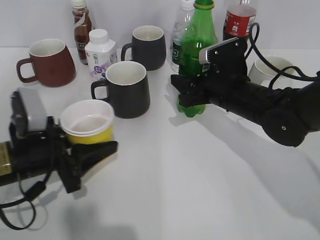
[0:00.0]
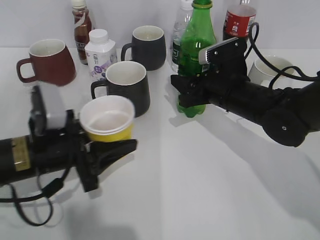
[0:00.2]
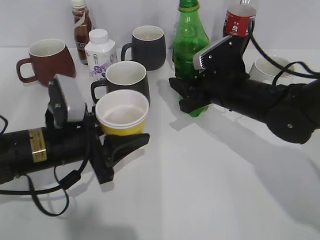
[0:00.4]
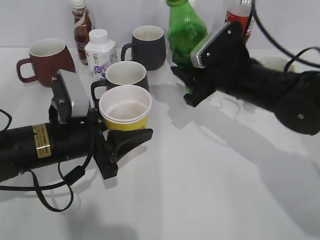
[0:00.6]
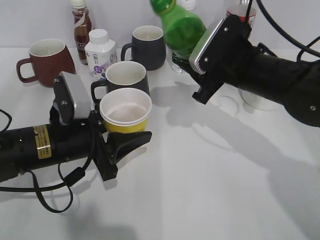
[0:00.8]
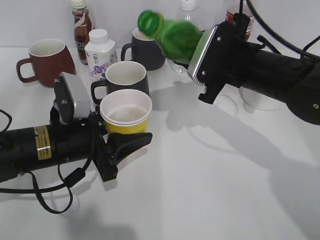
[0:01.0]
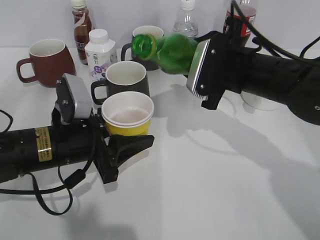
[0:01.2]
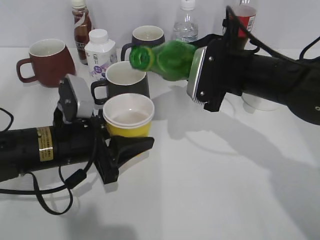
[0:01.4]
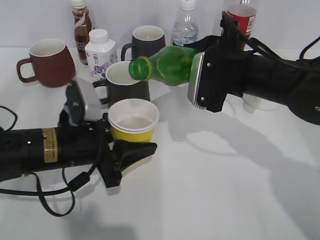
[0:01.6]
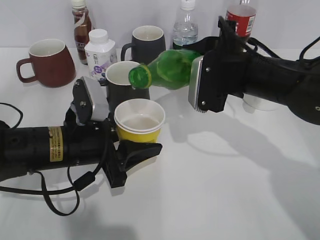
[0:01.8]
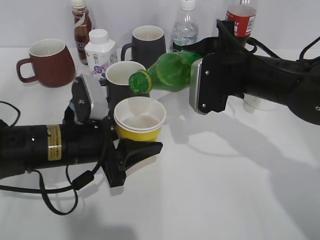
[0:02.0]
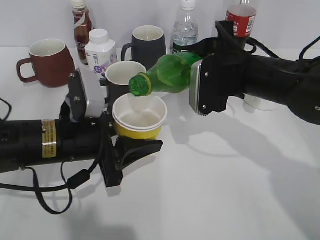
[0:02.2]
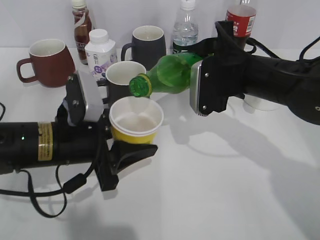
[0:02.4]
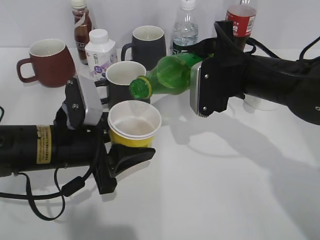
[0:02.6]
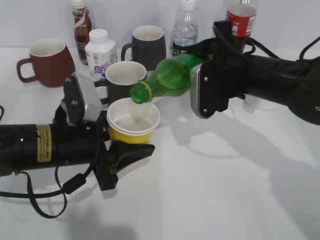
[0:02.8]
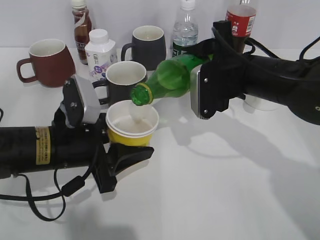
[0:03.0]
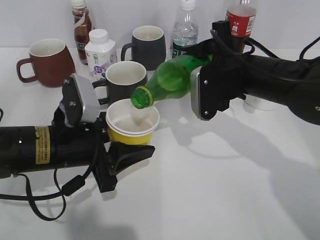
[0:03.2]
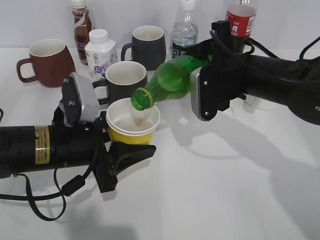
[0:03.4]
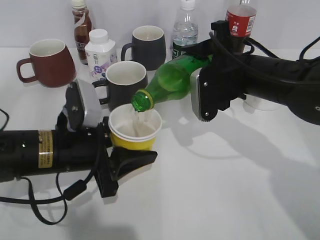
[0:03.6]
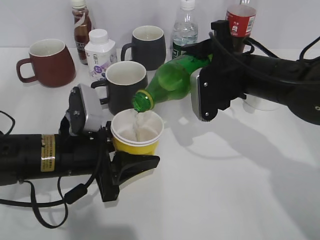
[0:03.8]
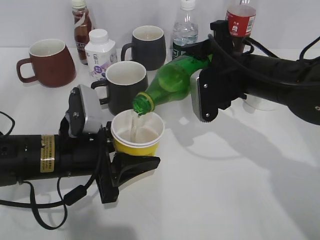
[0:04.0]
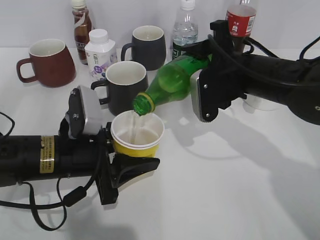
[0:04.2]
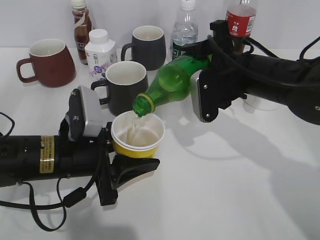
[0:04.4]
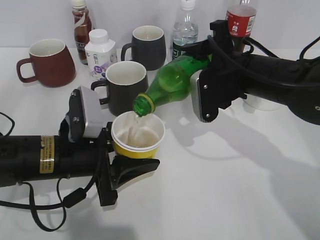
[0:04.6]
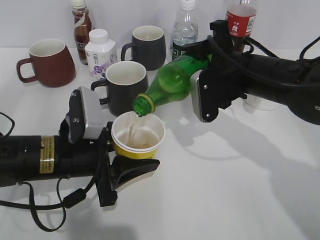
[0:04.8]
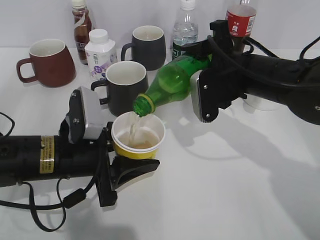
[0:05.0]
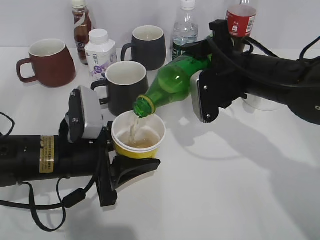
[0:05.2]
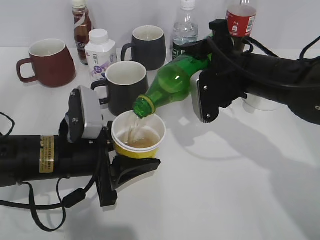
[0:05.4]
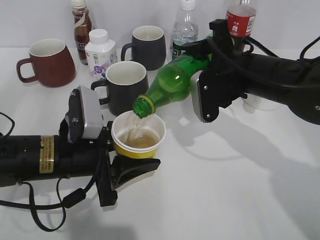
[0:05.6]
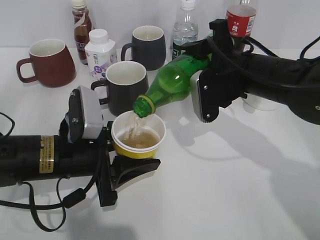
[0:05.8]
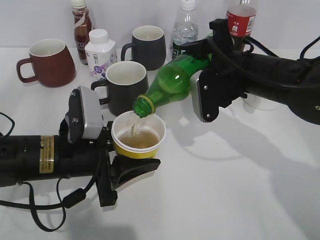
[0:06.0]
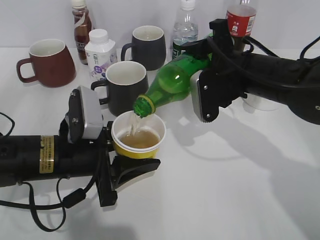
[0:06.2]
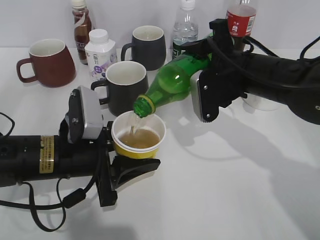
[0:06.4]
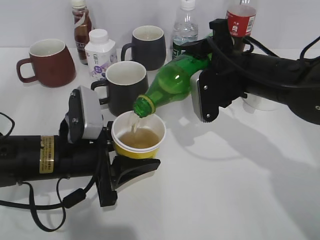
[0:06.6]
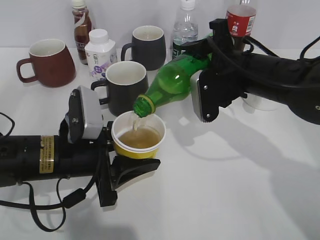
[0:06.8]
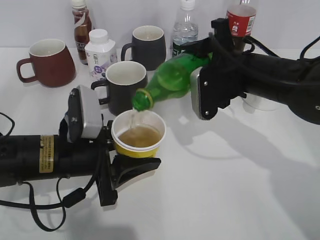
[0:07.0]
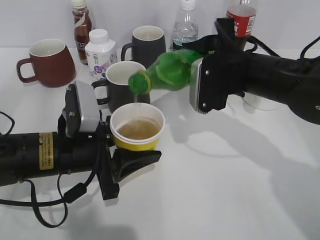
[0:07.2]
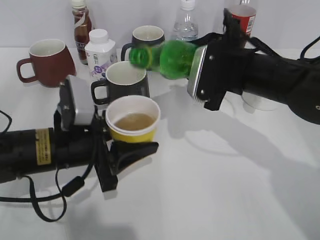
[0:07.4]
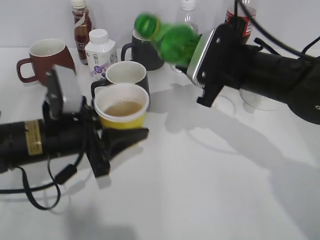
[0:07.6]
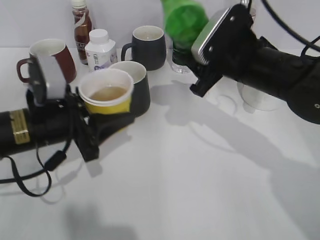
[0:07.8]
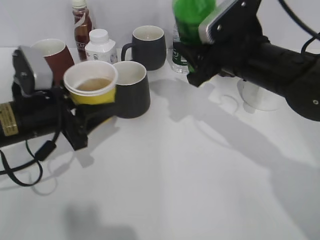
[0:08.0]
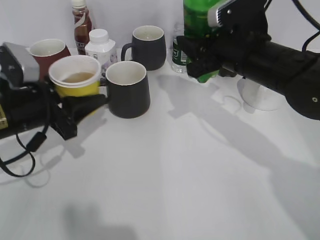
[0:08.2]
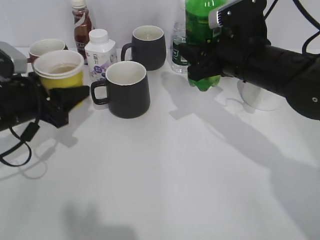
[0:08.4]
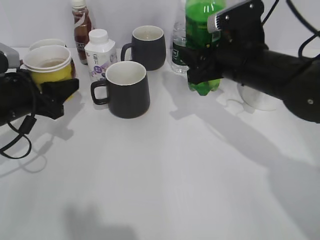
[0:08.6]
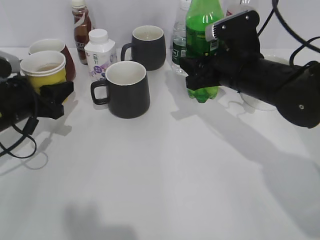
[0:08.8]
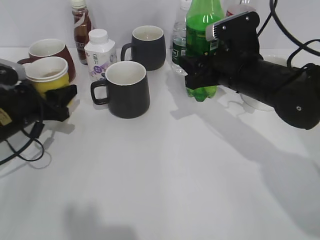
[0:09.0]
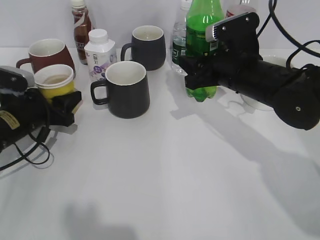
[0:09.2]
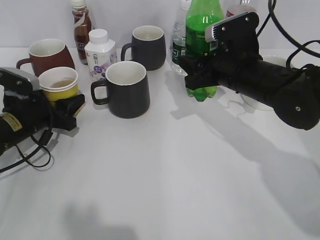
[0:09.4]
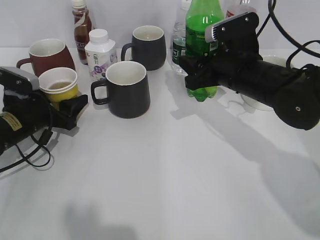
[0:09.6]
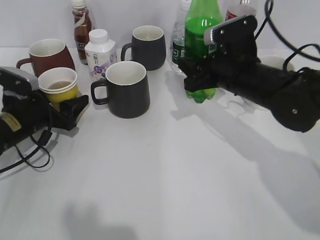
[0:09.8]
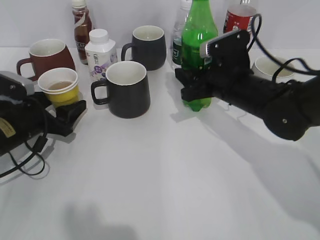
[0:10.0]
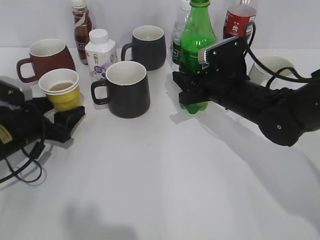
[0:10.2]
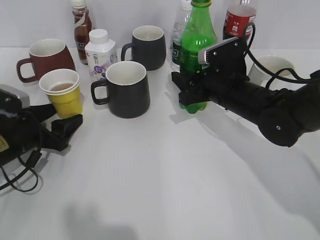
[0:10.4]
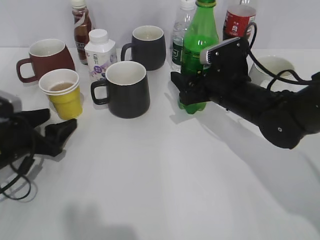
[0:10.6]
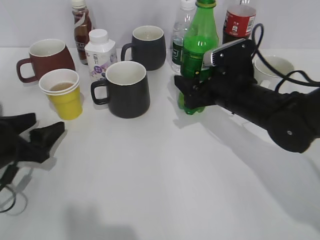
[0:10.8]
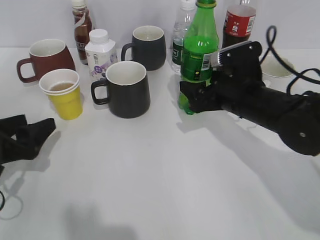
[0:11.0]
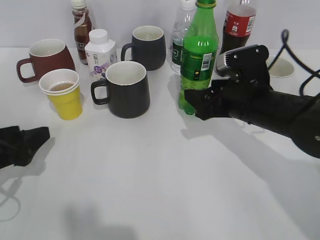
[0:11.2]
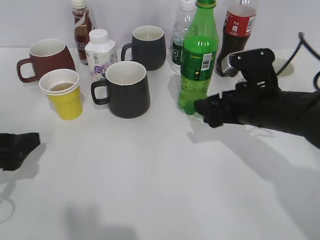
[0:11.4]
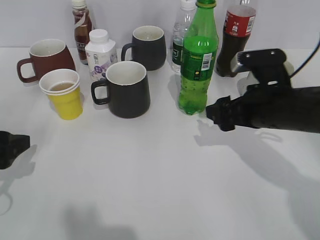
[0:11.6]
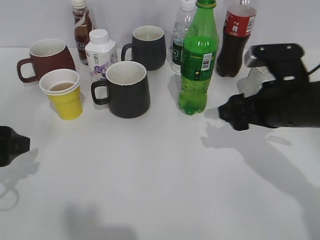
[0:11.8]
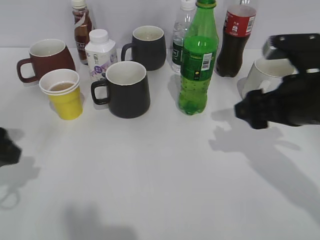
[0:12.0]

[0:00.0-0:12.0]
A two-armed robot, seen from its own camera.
Step, 0:00.2 to 0:07.2: Pour the sprite from bottle to cup with right gripper.
Step, 0:07.4 to 0:08.8: Place the yellow paper cup on the table with left gripper.
Step, 0:09.0 to 0:10.8: Place the sprite bottle on the table with right gripper.
0:00.0 to 0:01.6: The right gripper shifts about 5 cm upward. Meanwhile the left gripper is displaced to the right by roughly 5 cm.
0:01.6 to 0:03.0: The grippers make only small movements.
0:03.0 to 0:04.4: The grippers stay close to where they were, moving slightly.
0:04.4 to 0:06.0: The two grippers keep their place.
0:07.6 to 0:09.0: The left gripper is displaced to the left and forward by some 10 cm.
0:09.0 to 0:10.4: The left gripper opens up.
0:10.4 to 0:12.0: The left gripper goes about 15 cm upward and backward, while the right gripper moves backward, upward and to the right, approximately 15 cm, and opens.

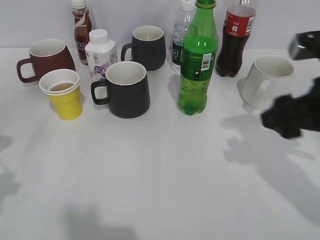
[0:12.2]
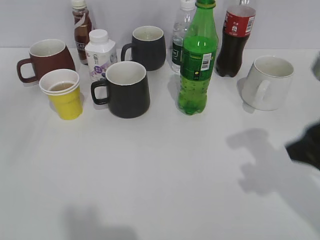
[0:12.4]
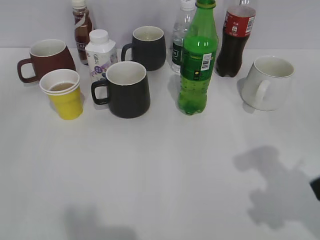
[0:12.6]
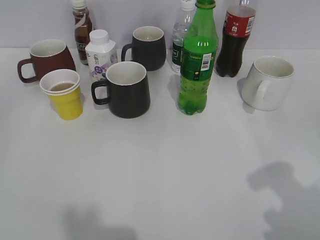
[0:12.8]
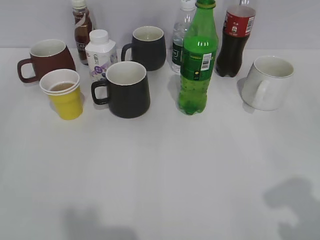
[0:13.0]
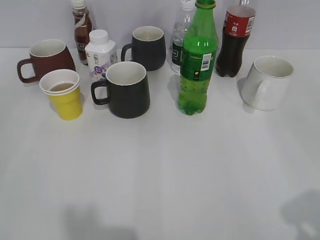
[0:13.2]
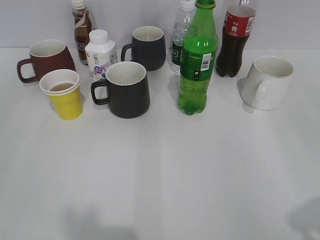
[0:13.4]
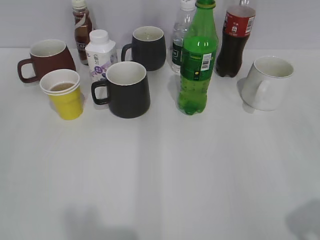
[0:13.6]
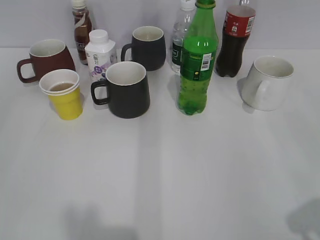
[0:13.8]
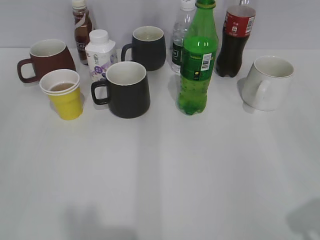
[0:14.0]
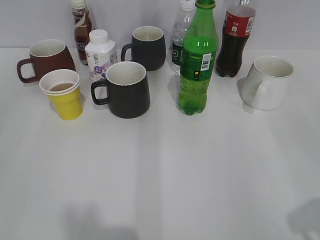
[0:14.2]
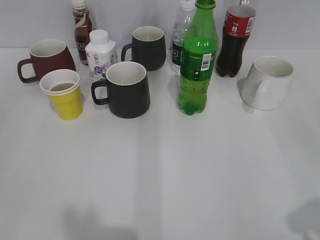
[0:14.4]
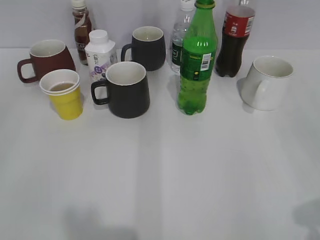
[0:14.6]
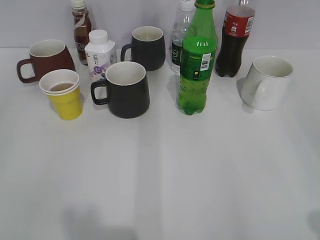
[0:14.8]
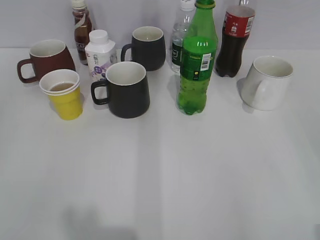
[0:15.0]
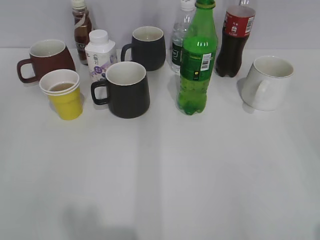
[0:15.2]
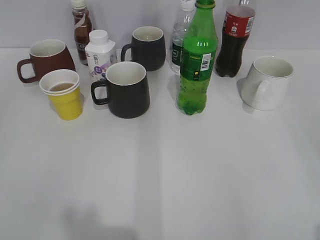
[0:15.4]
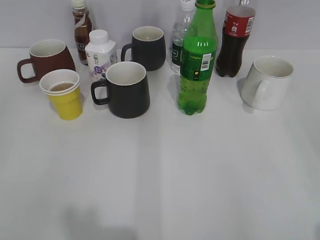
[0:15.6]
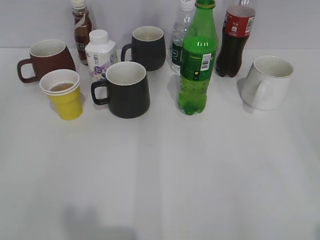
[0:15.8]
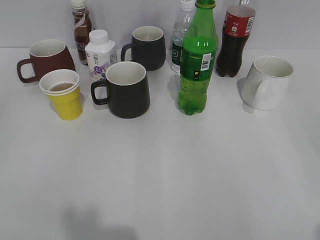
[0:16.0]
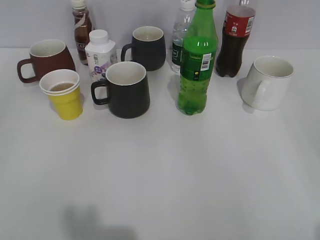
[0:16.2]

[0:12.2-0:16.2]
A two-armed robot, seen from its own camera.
0:12.2 to 0:13.6: The right gripper travels backward and to the right by roughly 20 cm.
0:13.6 to 0:14.8: The grippers move only a little.

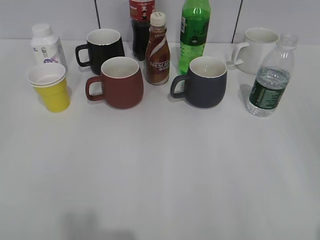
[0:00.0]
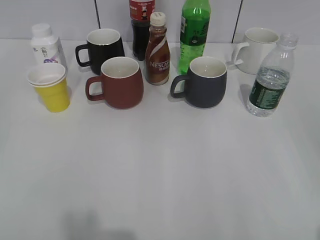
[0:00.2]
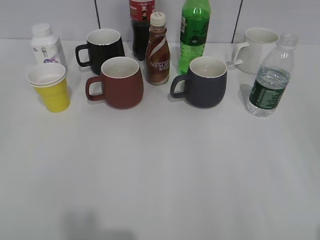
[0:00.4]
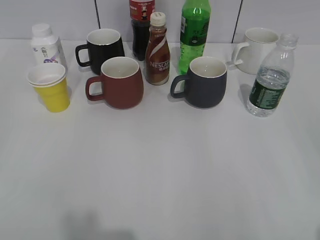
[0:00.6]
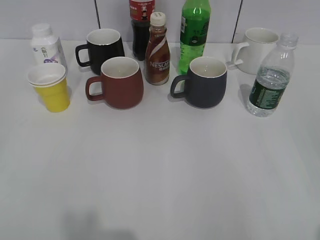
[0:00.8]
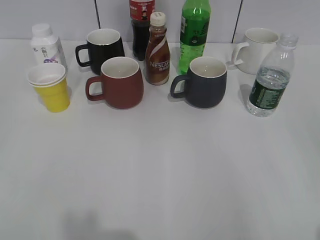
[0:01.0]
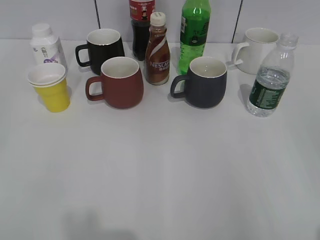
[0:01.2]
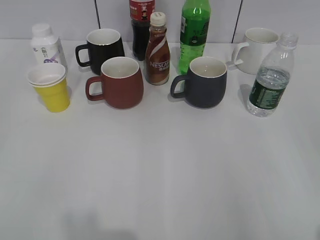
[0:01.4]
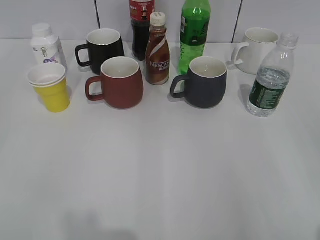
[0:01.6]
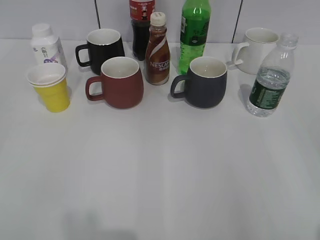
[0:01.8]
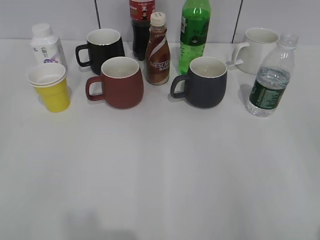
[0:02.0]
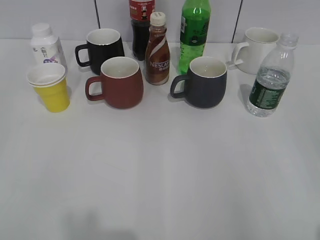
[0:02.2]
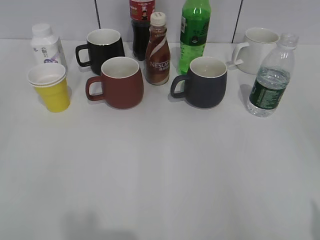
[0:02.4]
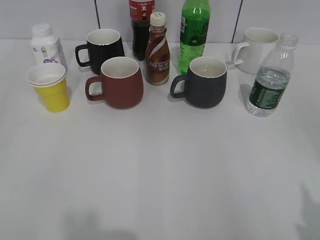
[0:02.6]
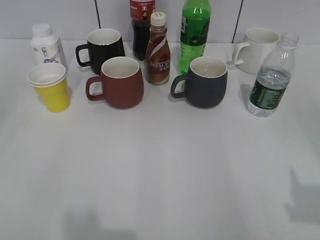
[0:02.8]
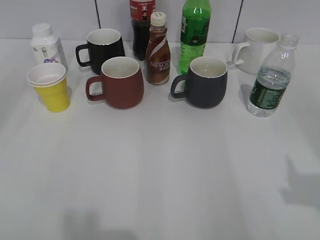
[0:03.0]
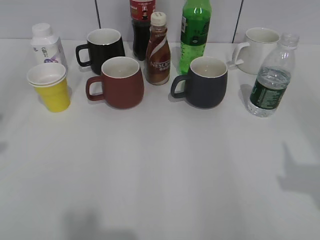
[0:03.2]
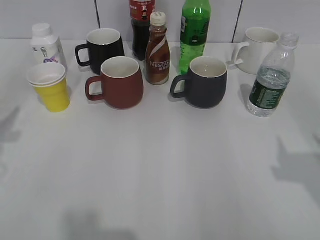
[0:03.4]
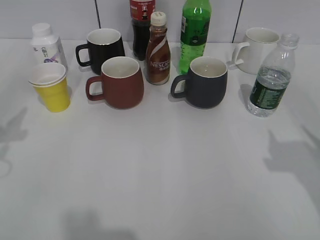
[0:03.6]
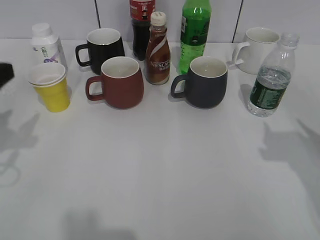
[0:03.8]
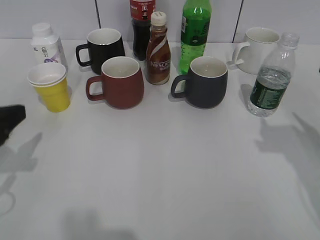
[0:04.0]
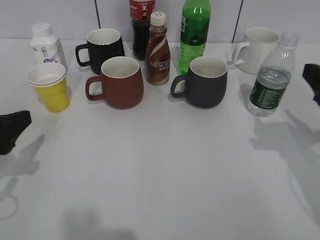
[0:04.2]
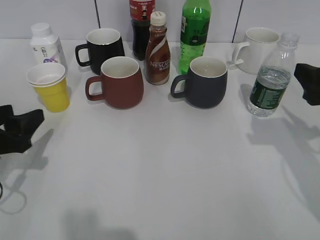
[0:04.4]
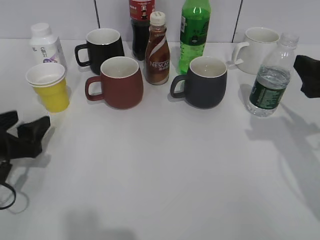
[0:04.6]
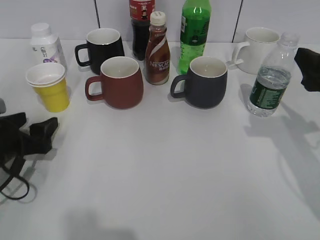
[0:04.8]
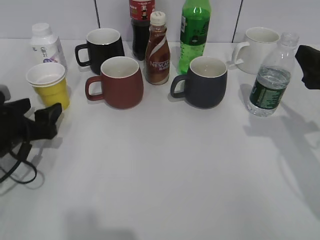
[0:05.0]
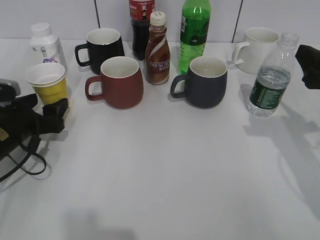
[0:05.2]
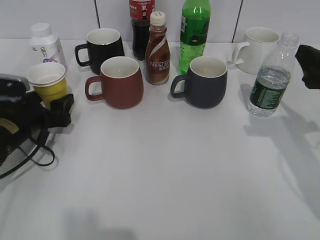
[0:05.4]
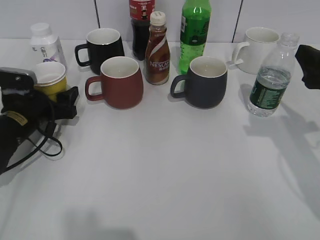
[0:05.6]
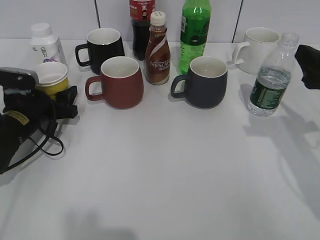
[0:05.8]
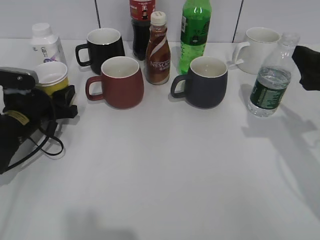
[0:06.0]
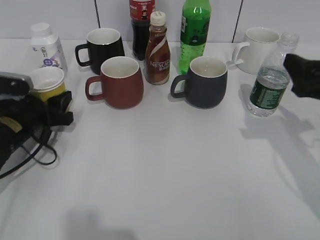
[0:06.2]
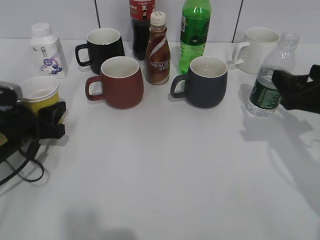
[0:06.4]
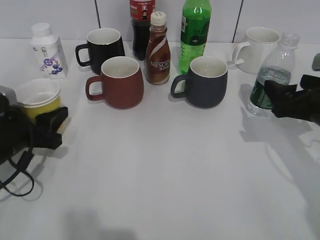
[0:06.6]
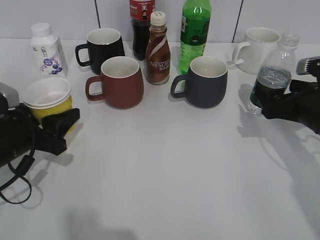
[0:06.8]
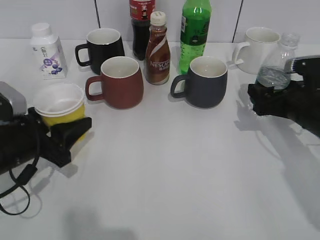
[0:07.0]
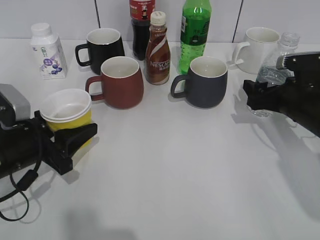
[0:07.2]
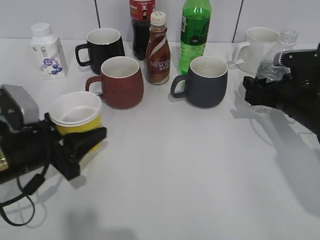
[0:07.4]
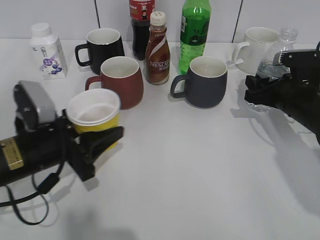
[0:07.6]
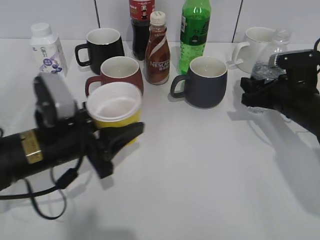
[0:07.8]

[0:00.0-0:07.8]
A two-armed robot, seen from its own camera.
Step, 0:02.0 to 0:05.6: Grasp the yellow paper cup with left gripper.
Step, 0:06.0 to 0:07.6: Grasp the bottle with water with right gripper.
0:01.6 to 0:03.2: The grippers both shift forward by about 10 cm.
0:03.2 to 0:04.6: The left gripper moves downward and forward, about 20 cm, and opens. The right gripper goes roughly 15 cm forward and downward.
0:04.6 to 0:06.2: The left gripper goes about 10 cm forward, and closes.
0:06.2 to 0:07.8: The left gripper heads to the right and backward, covering roughly 10 cm; the right gripper travels forward and downward by some 15 cm, and closes up.
